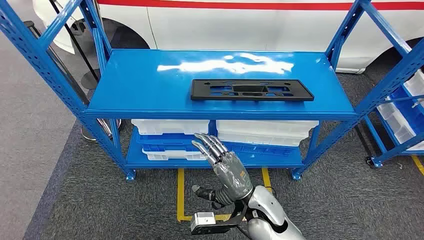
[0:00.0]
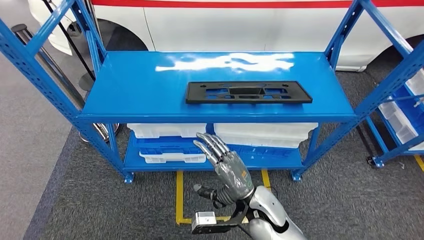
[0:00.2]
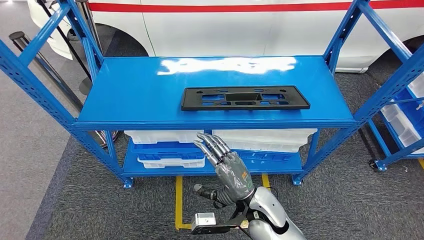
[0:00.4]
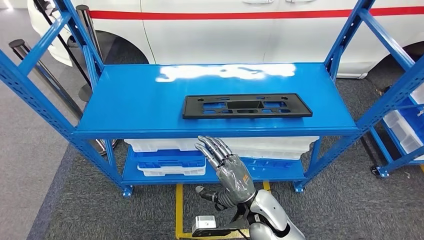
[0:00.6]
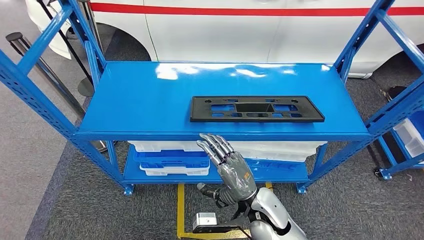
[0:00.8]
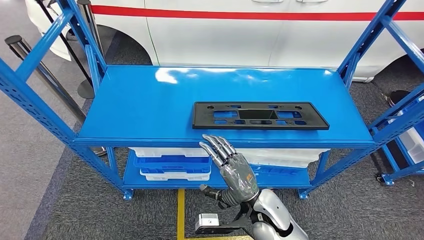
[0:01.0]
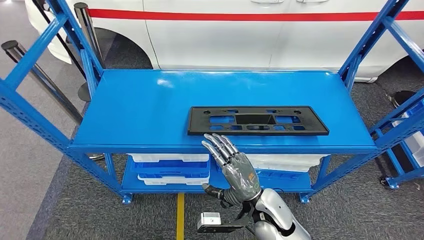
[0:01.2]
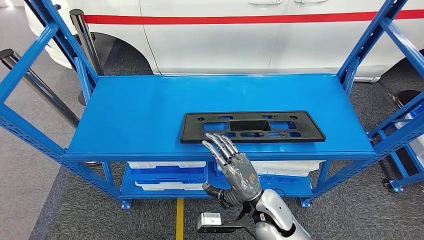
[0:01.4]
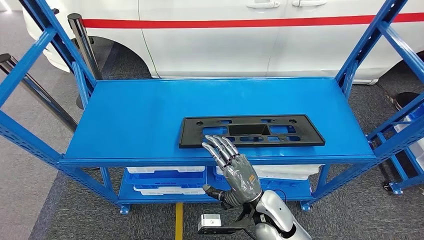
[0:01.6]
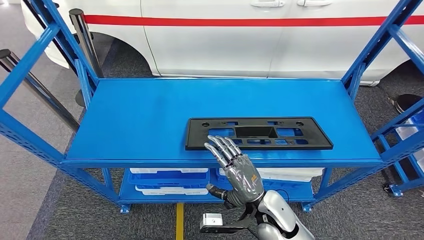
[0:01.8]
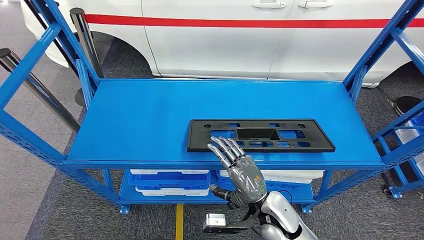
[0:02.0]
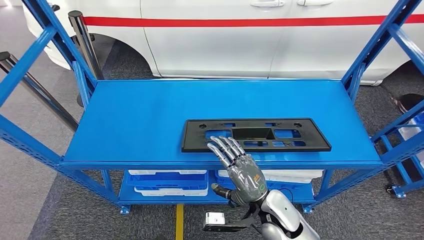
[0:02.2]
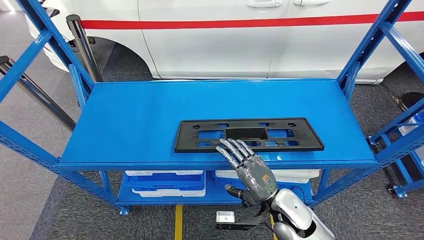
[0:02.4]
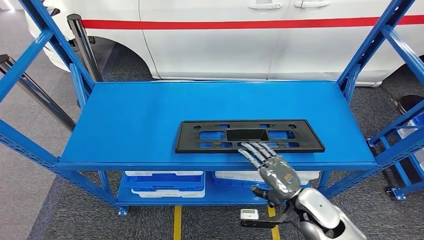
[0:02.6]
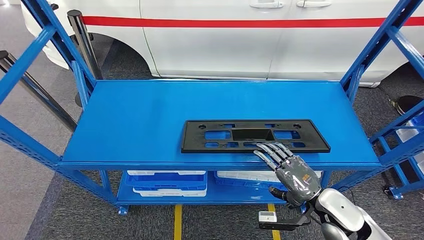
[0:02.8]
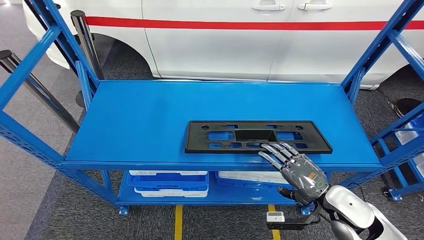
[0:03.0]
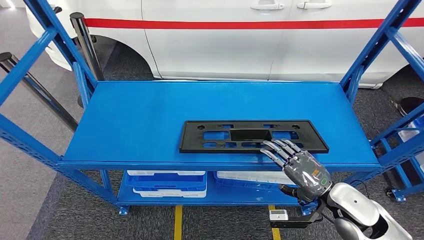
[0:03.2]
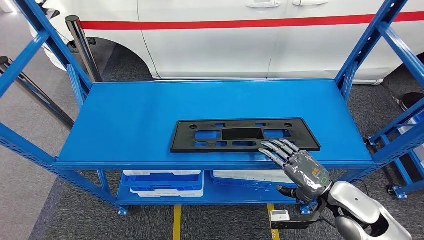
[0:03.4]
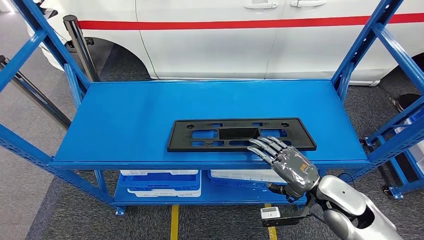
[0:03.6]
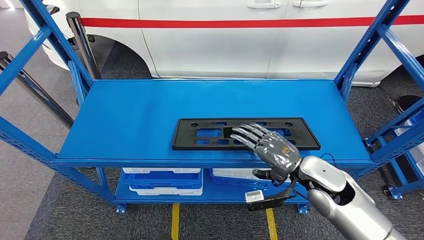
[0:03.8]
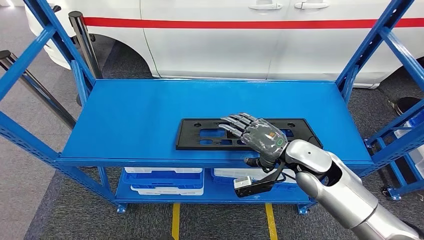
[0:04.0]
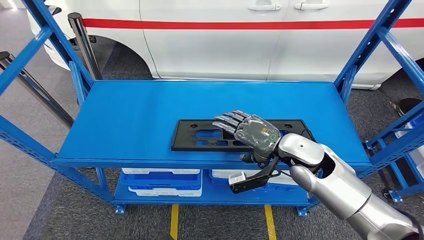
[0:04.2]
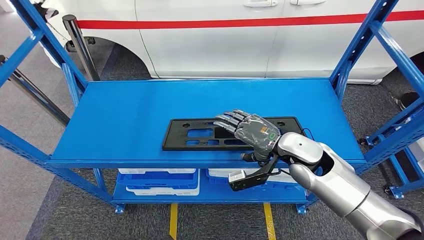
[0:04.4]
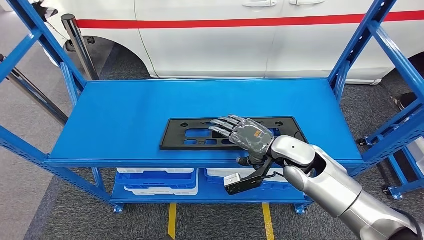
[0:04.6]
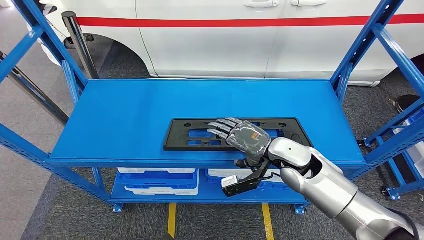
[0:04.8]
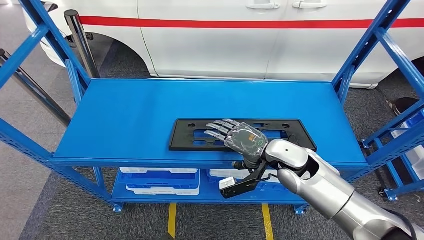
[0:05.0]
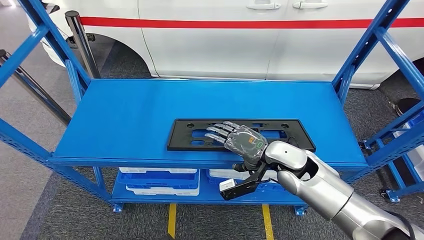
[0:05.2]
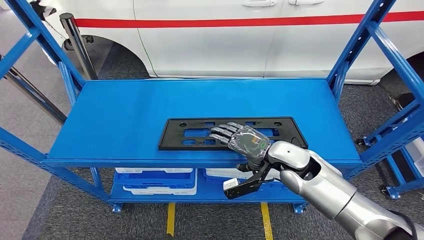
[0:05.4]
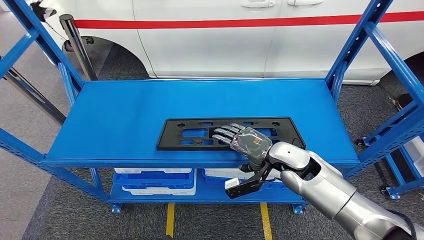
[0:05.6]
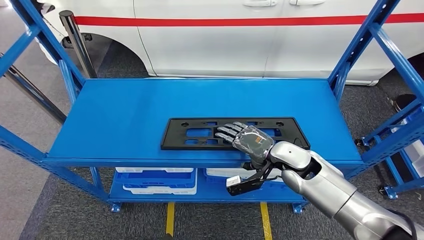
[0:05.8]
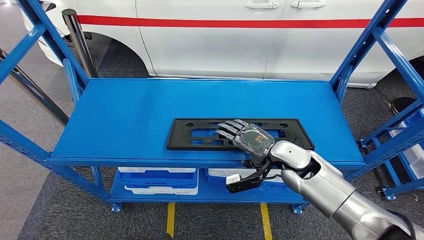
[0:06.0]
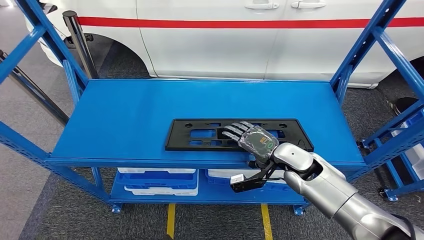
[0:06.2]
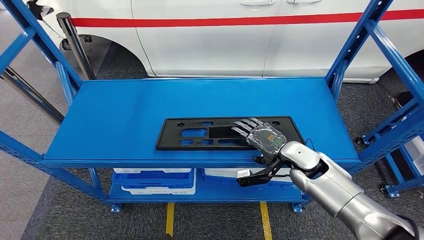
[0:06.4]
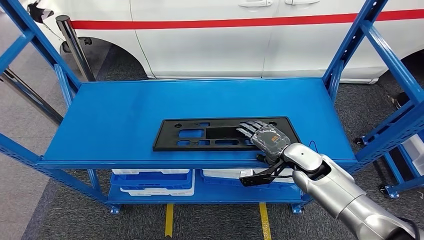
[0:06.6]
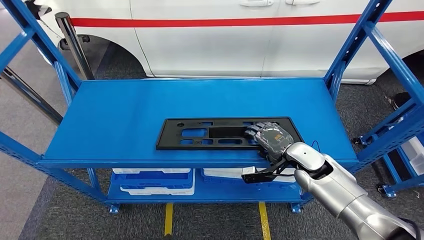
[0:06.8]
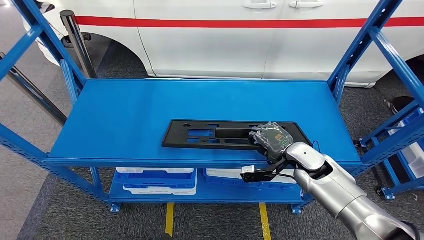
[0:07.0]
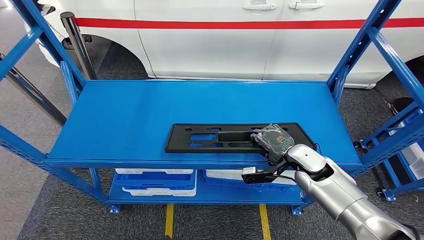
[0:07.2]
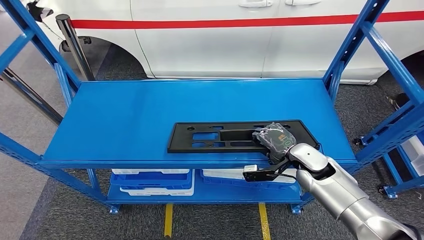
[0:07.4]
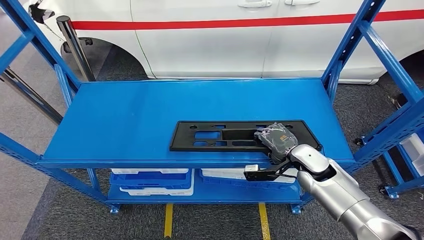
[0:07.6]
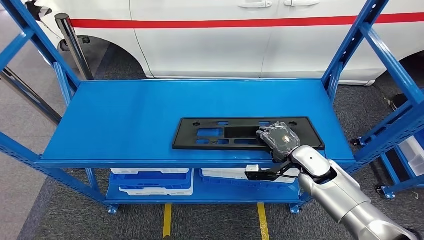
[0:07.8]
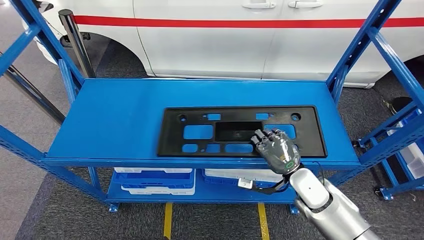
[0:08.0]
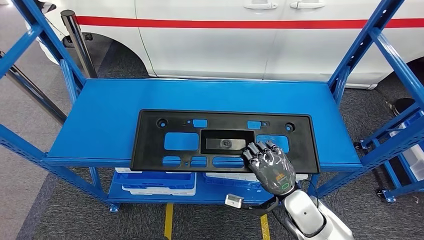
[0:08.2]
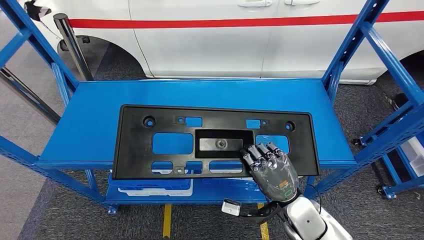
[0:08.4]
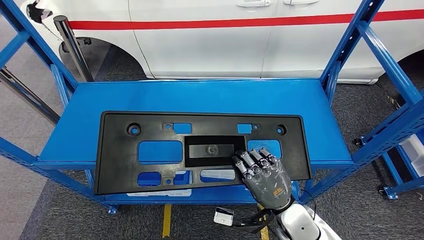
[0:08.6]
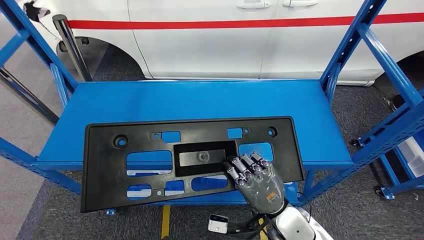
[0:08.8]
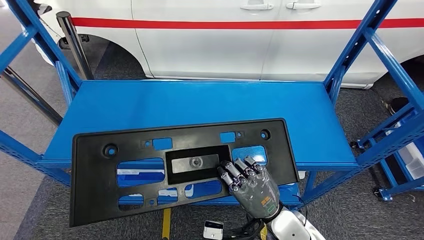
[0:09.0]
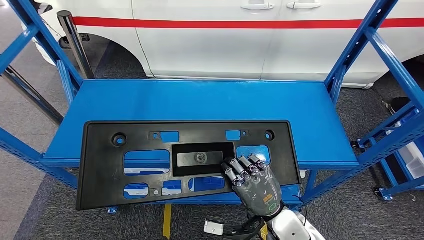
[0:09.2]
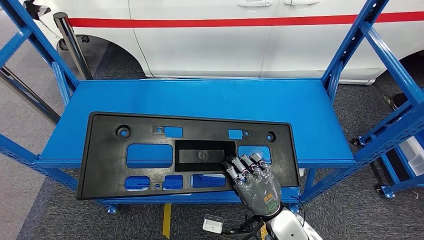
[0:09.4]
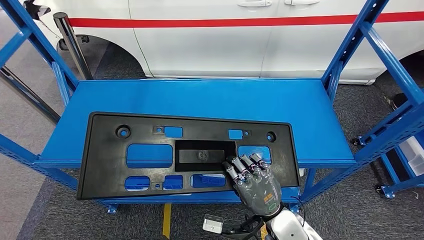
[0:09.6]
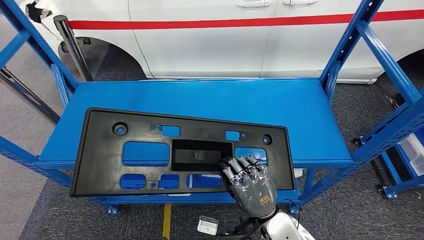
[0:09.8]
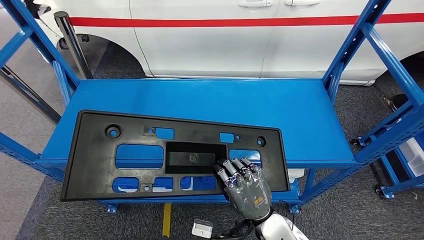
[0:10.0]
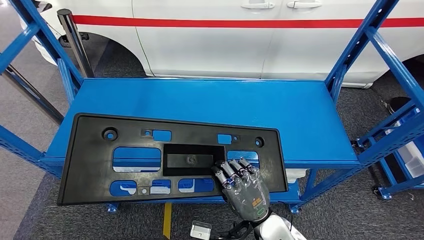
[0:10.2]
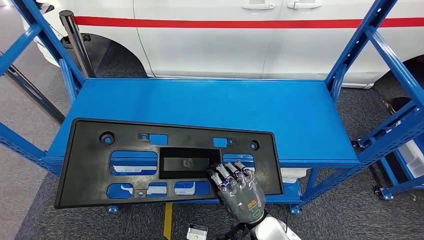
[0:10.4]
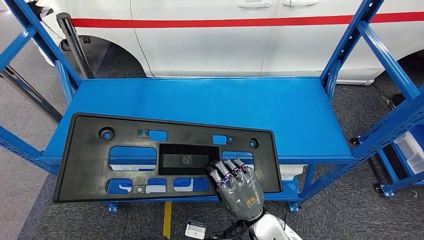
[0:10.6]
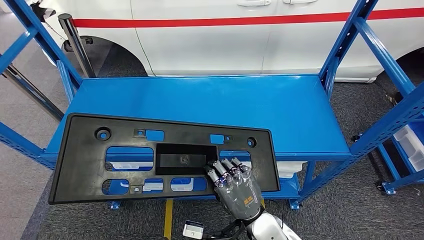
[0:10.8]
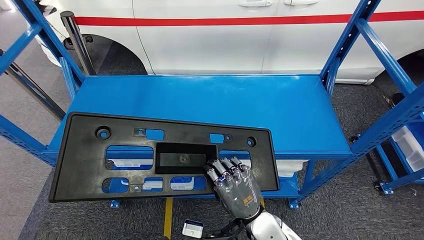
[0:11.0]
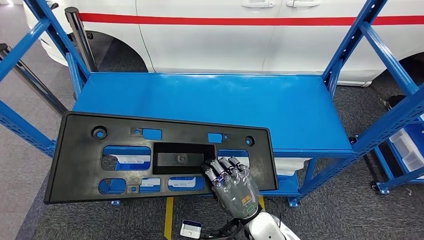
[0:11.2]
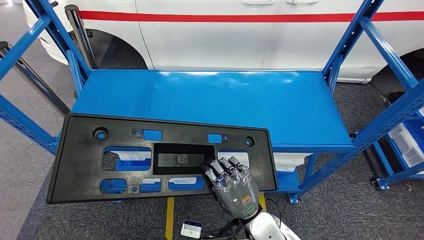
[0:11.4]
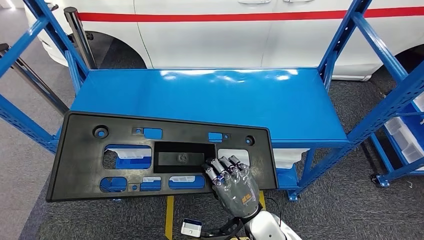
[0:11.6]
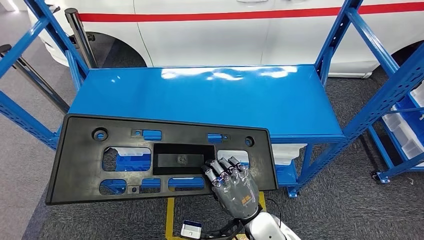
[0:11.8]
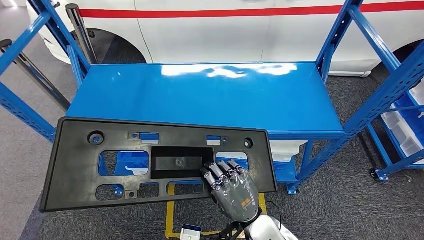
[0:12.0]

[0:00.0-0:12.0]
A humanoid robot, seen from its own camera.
Step, 0:00.0 to 0:10.4: Pick up the large material from the shelf.

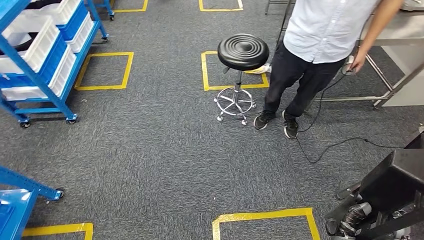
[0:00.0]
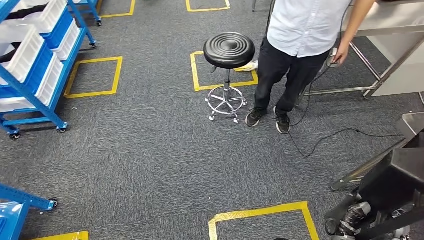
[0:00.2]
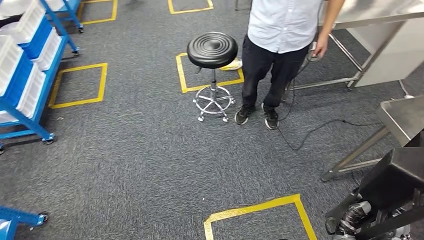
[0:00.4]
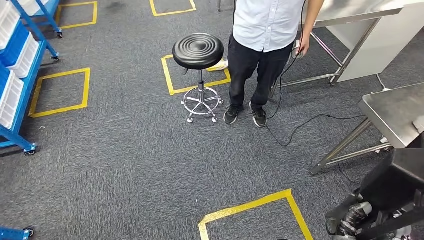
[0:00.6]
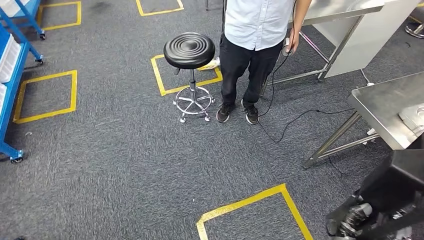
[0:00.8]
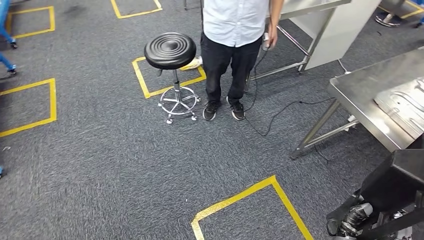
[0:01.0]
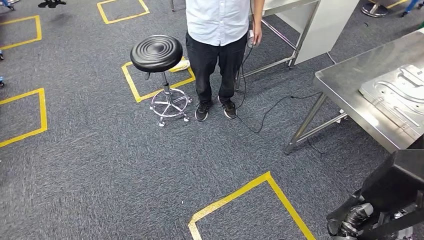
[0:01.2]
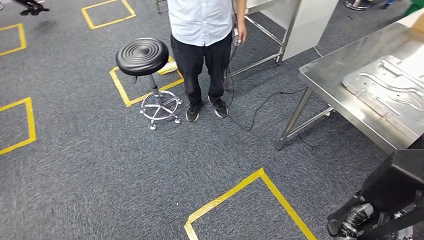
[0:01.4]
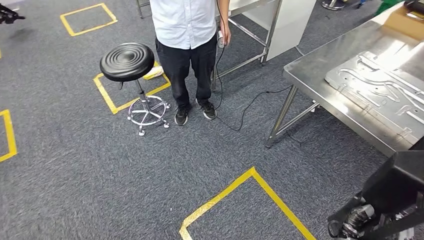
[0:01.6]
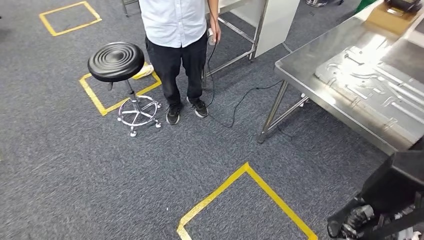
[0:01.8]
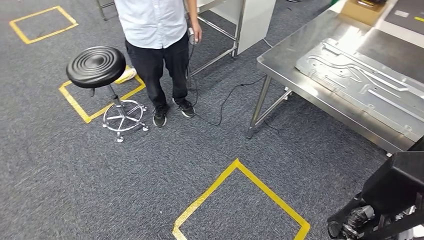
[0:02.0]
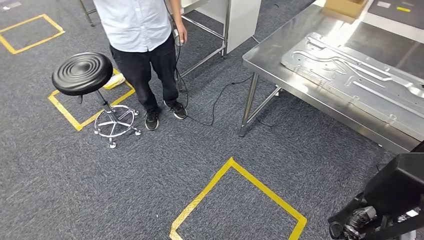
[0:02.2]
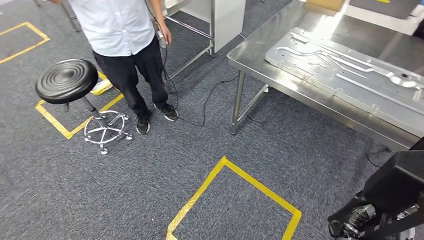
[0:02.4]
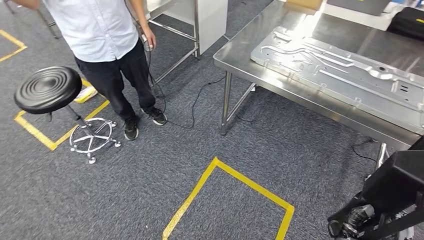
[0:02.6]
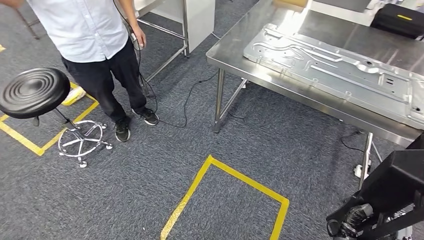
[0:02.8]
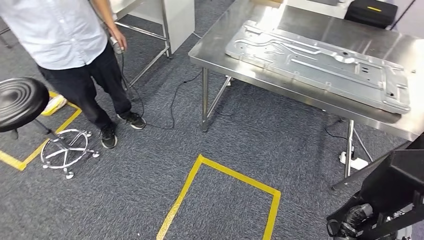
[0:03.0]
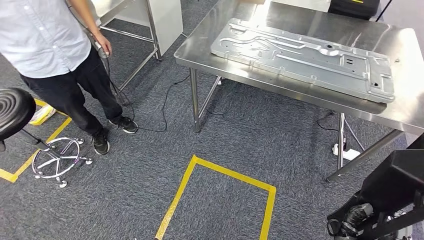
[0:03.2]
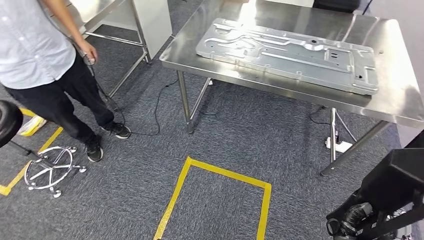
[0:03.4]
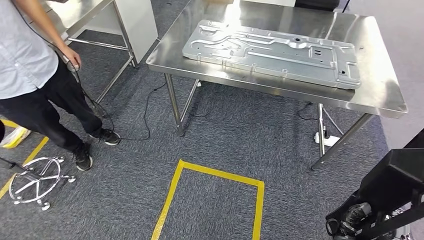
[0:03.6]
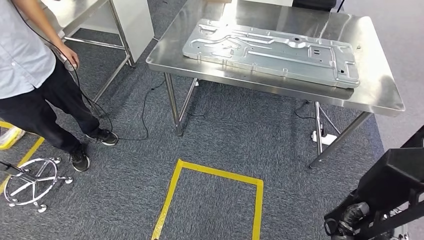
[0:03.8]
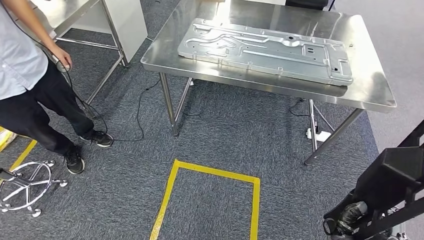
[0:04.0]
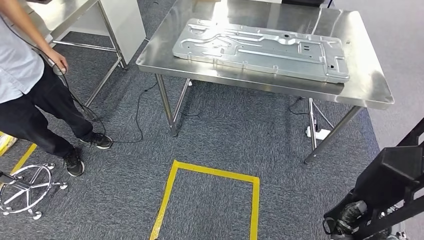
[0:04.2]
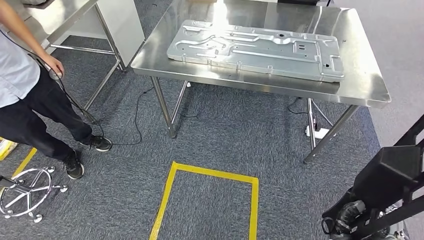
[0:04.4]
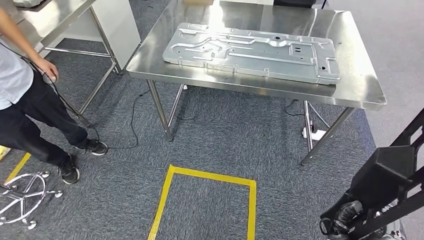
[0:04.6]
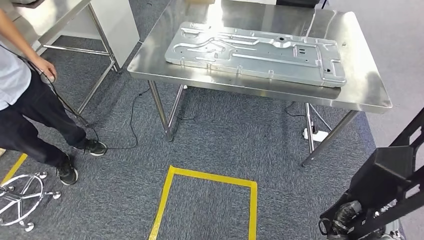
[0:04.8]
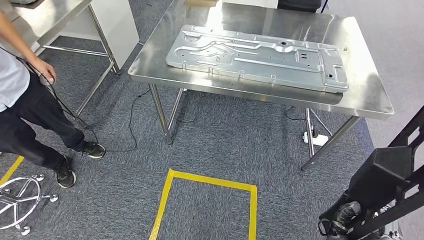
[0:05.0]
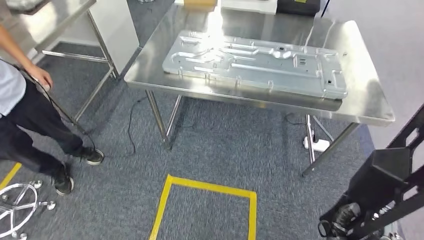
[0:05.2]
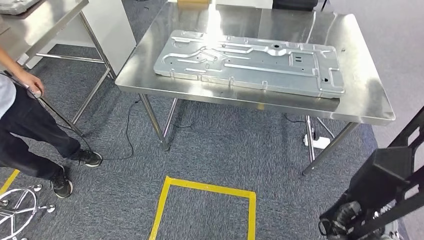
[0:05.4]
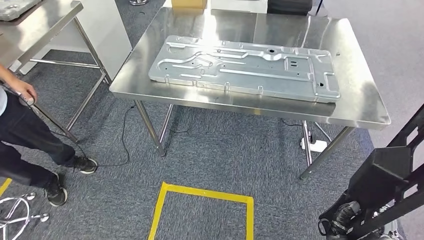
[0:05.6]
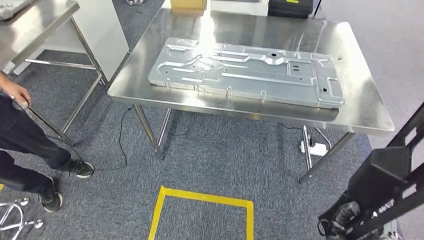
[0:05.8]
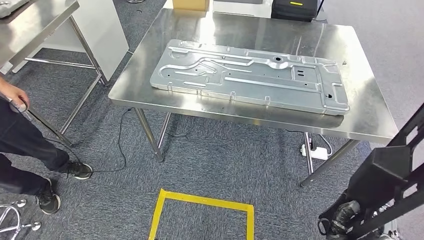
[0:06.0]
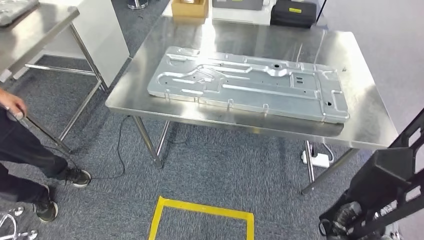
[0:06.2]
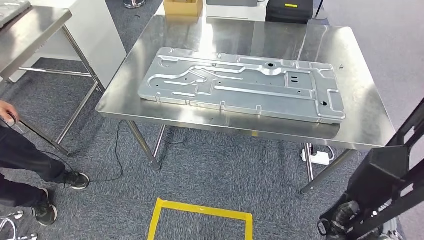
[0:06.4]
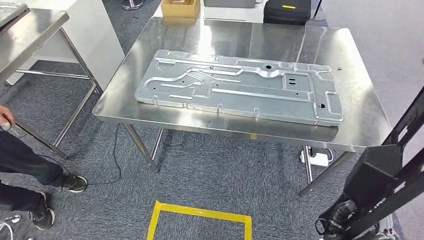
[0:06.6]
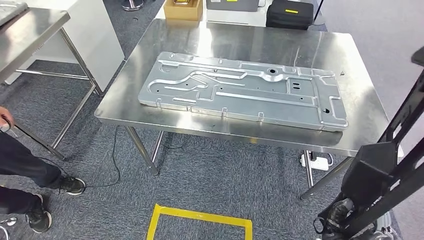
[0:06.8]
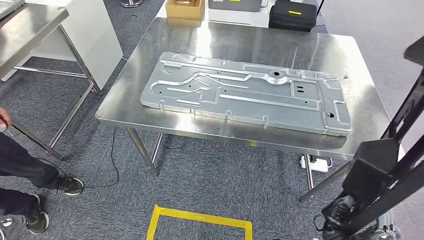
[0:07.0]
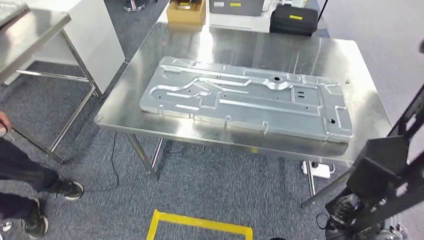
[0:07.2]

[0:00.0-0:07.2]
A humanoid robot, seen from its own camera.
Step, 0:00.0 to 0:05.4: Move the large material to the front of the workbench.
